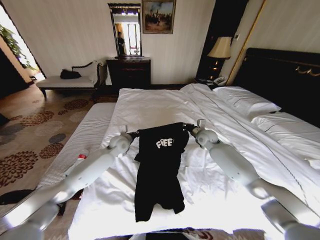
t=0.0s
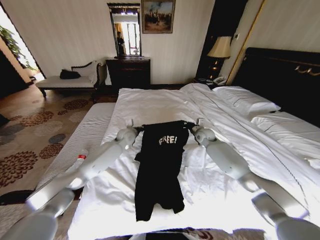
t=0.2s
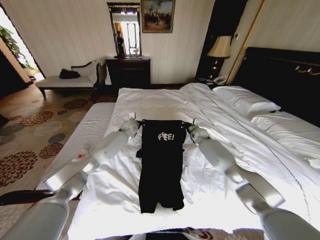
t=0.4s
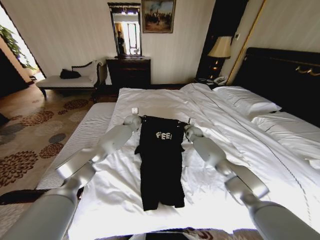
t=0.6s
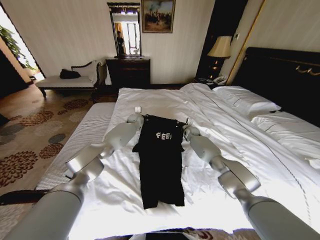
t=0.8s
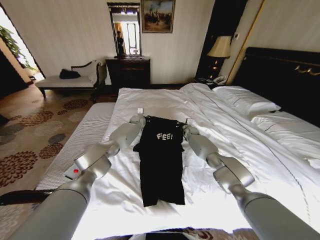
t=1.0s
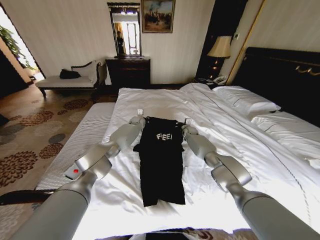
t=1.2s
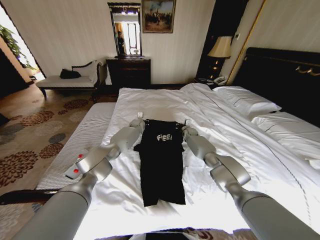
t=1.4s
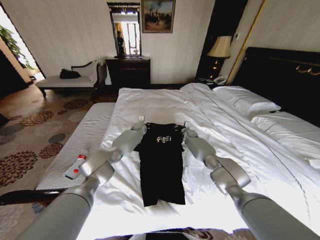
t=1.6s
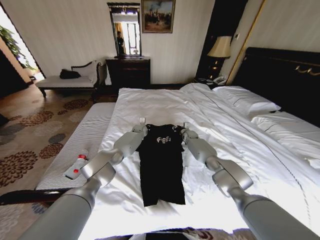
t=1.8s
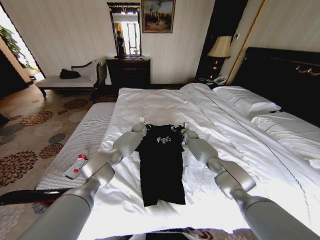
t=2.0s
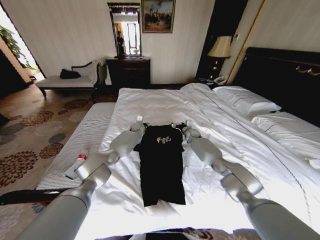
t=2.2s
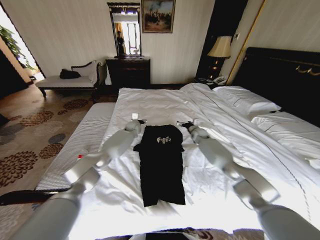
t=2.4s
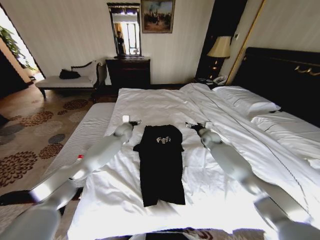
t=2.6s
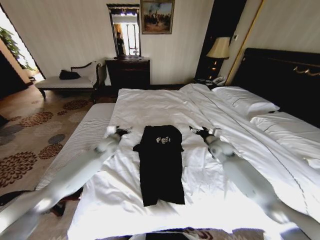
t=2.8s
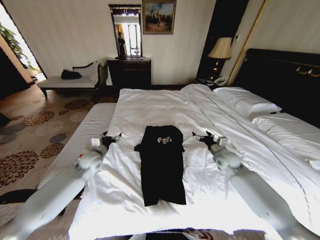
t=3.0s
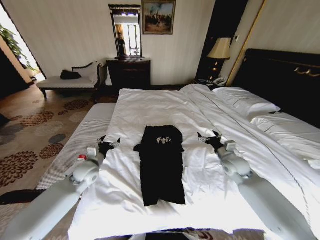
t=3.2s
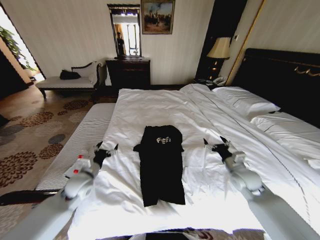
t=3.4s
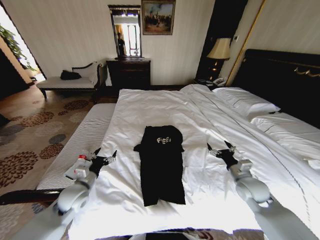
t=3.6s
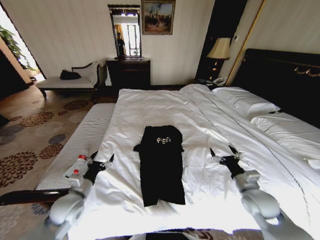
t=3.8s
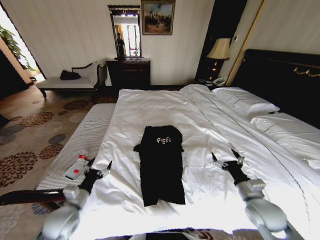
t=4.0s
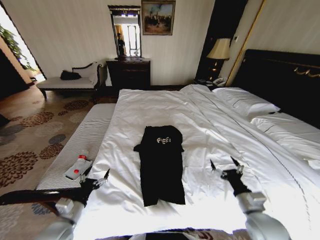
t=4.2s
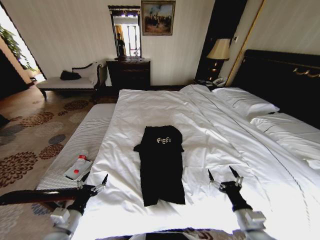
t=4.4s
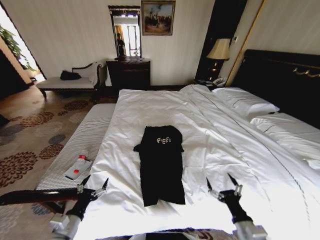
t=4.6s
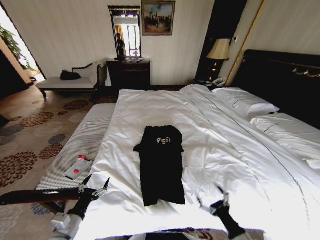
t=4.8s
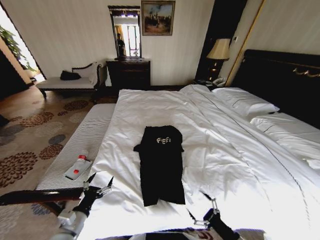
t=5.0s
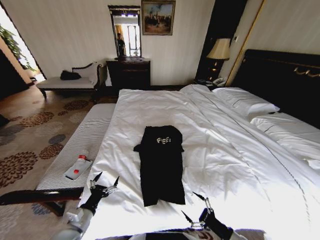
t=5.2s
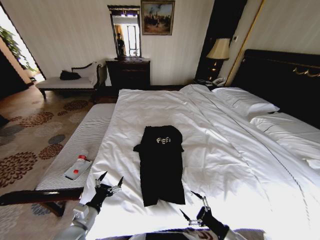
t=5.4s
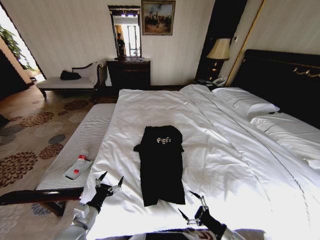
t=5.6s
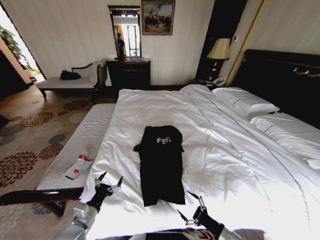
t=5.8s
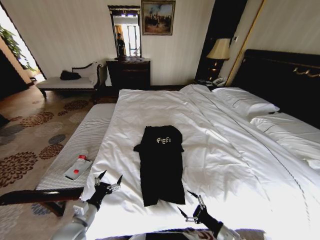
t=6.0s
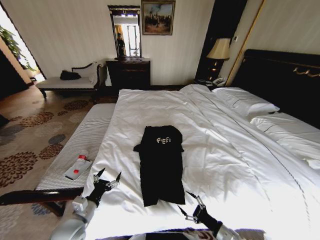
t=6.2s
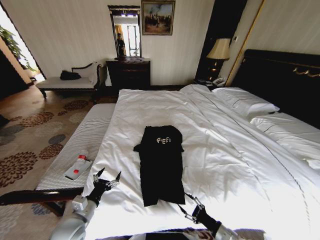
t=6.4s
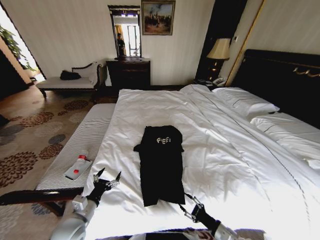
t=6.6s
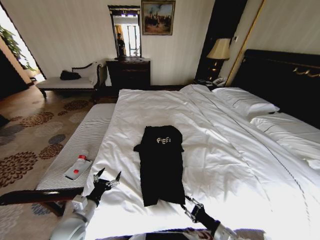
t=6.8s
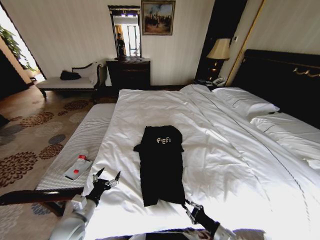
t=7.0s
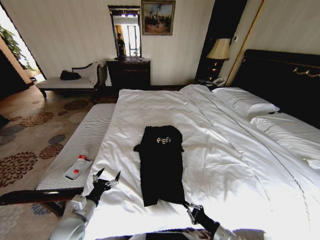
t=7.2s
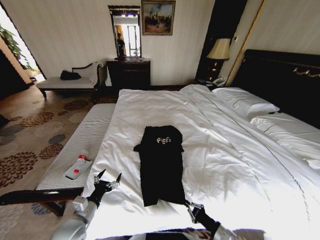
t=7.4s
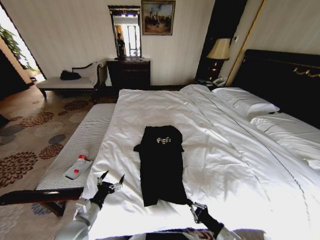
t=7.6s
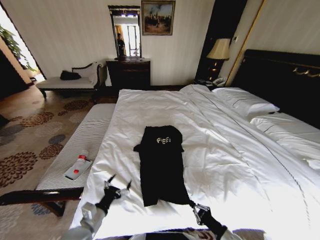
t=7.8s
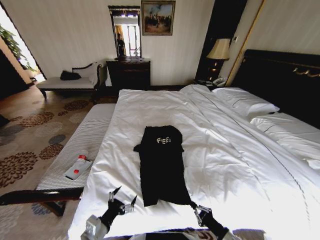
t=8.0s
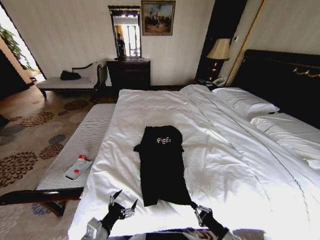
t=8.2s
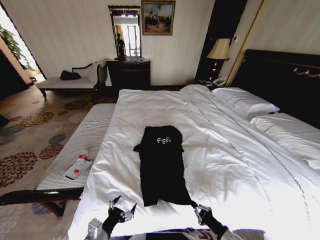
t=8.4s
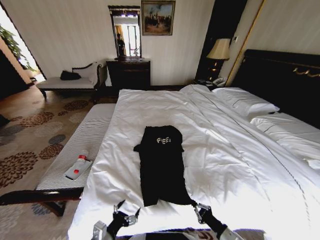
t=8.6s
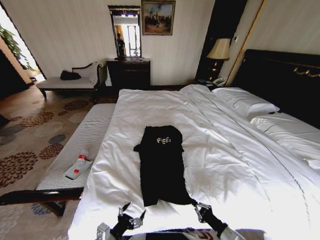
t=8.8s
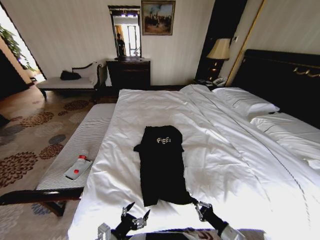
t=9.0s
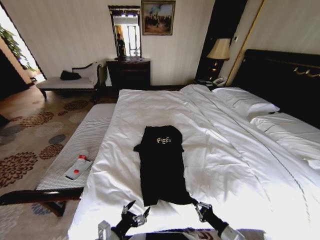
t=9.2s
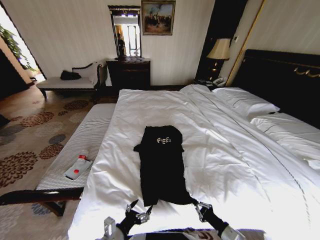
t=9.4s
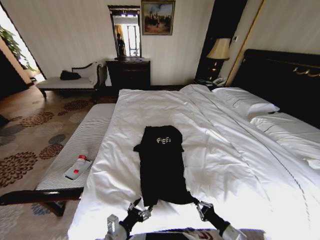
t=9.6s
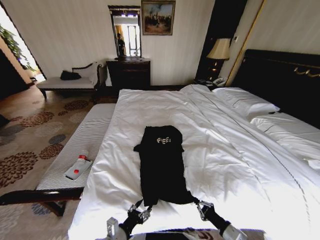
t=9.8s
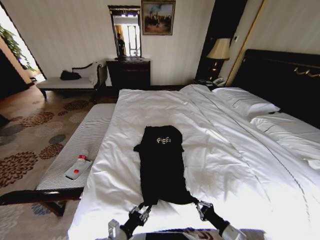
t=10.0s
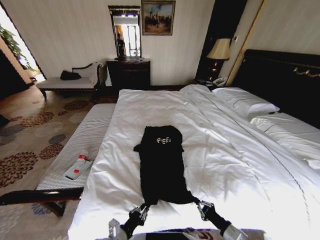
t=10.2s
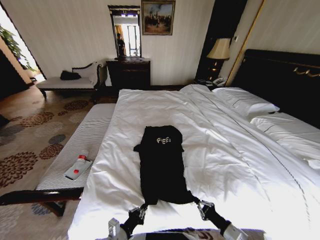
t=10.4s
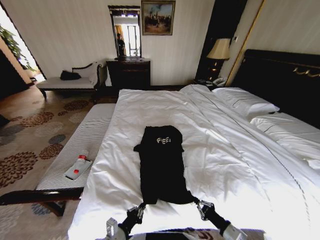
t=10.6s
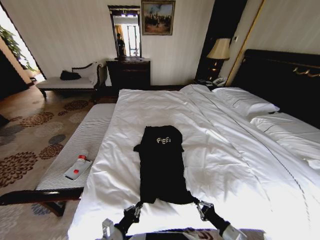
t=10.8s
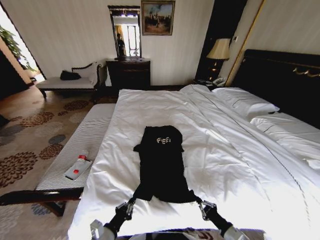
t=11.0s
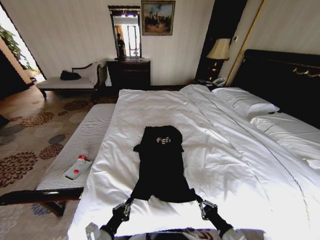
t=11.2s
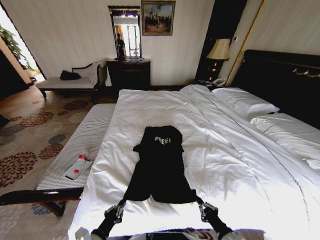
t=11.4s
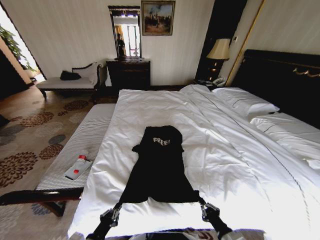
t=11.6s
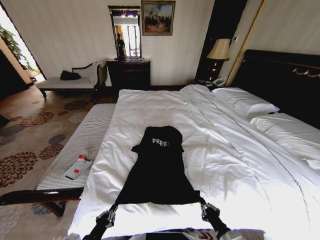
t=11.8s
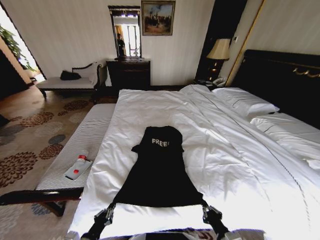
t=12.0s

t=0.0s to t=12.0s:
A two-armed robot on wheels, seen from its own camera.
Task of the whole recording: Fold the clothes on the bed.
t=0.0s to t=1.6s: The left gripper travels forward and to the right by some 20 cm. The right gripper is displaced forward and downward by some 15 cm.
t=1.6s to t=3.0s: The right gripper moves backward, roughly 25 cm, and opens its fingers, while the left gripper goes some 35 cm backward and to the left, and opens.
t=3.0s to t=4.4s: The two grippers go about 30 cm backward.
t=4.4s to t=6.0s: The right gripper heads downward, covering about 10 cm.
t=6.0s to t=7.6s: The right gripper closes up.
t=7.6s to t=9.0s: The left gripper is displaced backward and to the right by about 10 cm.
t=9.0s to t=10.4s: The left gripper changes place by roughly 5 cm, and closes its fingers.
t=10.4s to t=12.0s: Both grippers move to the left, roughly 10 cm.

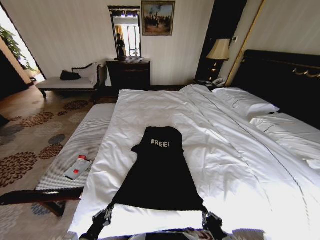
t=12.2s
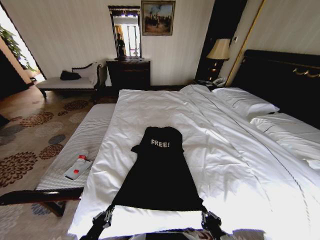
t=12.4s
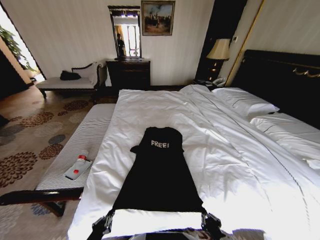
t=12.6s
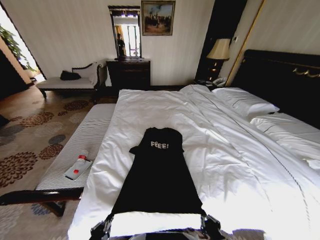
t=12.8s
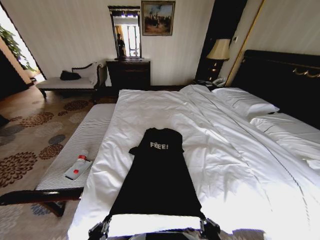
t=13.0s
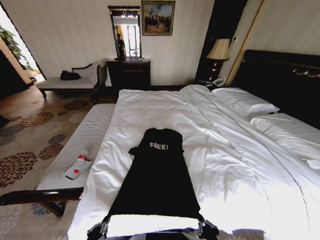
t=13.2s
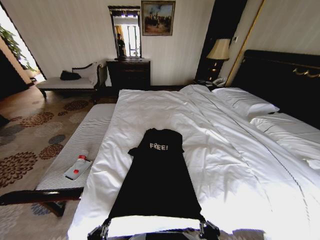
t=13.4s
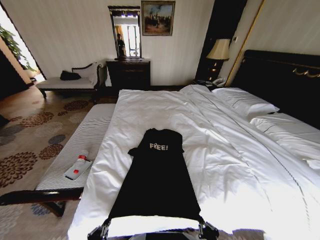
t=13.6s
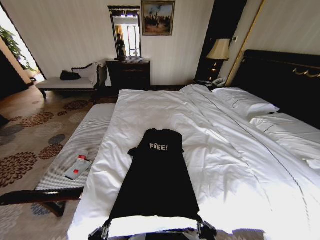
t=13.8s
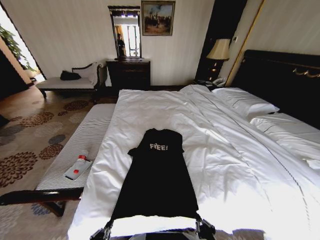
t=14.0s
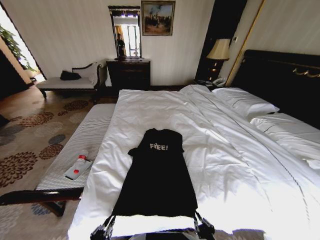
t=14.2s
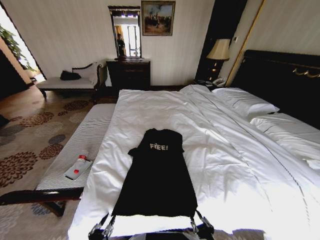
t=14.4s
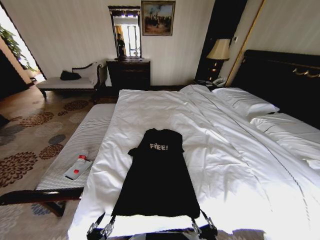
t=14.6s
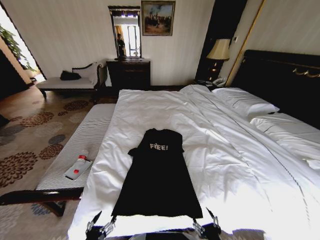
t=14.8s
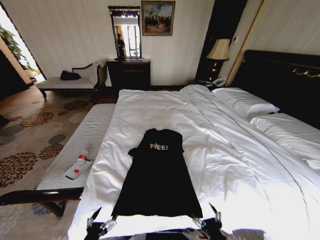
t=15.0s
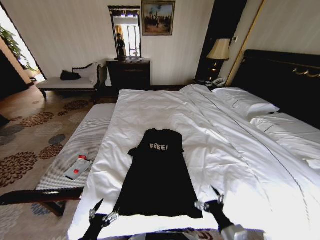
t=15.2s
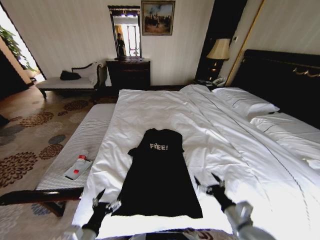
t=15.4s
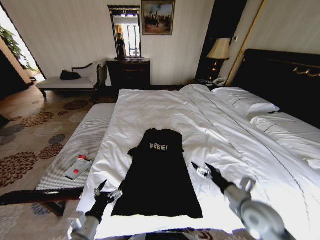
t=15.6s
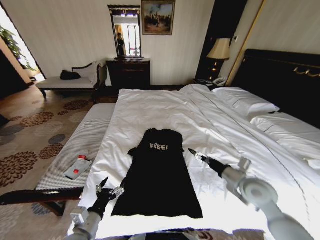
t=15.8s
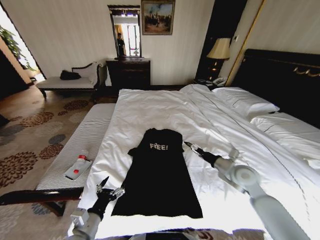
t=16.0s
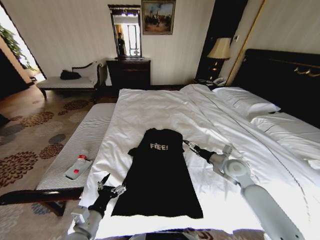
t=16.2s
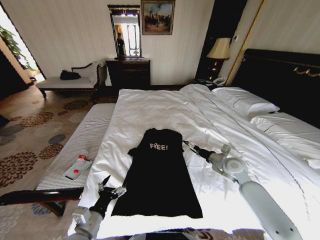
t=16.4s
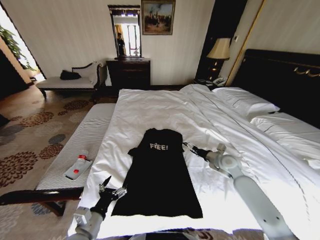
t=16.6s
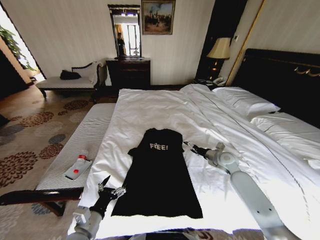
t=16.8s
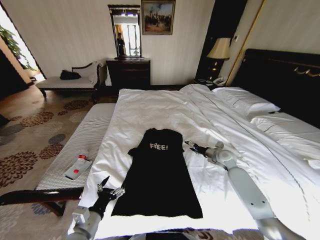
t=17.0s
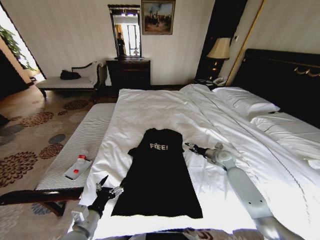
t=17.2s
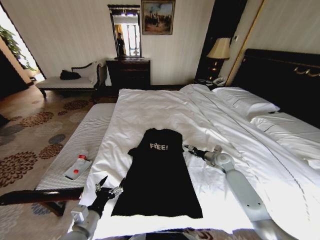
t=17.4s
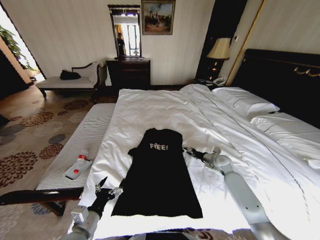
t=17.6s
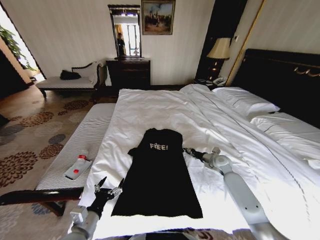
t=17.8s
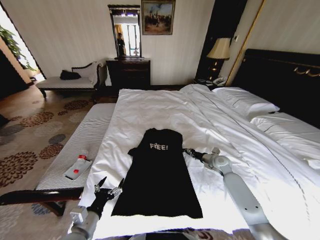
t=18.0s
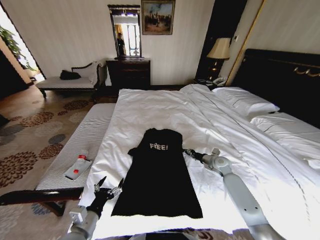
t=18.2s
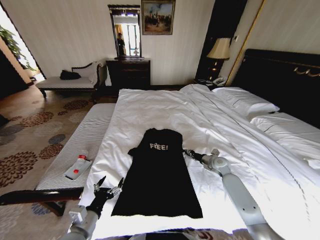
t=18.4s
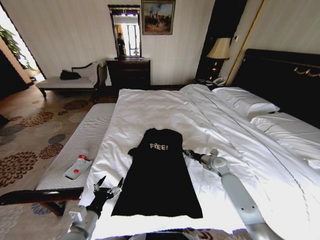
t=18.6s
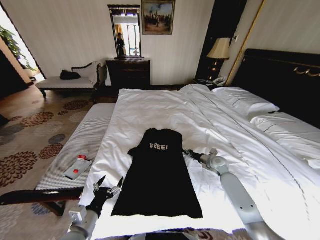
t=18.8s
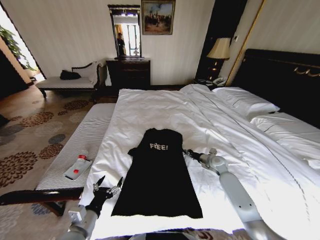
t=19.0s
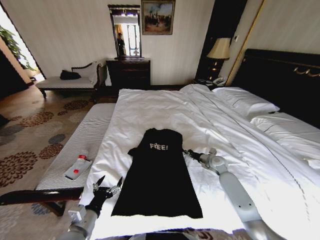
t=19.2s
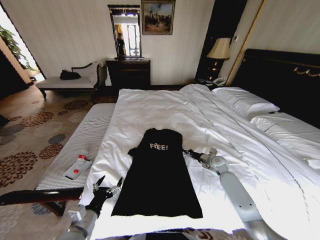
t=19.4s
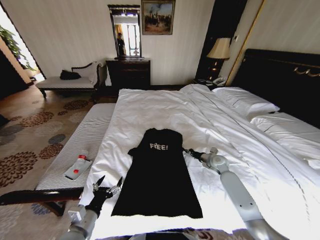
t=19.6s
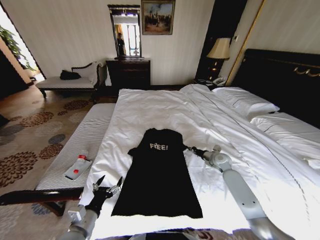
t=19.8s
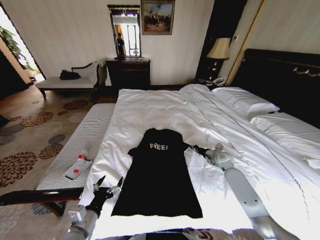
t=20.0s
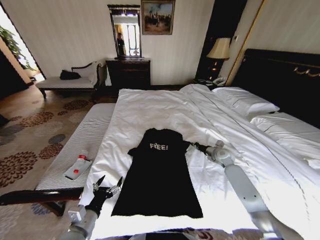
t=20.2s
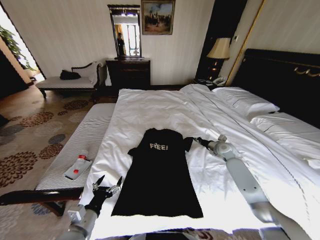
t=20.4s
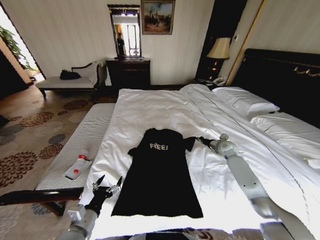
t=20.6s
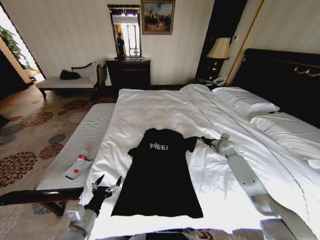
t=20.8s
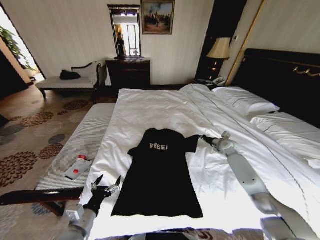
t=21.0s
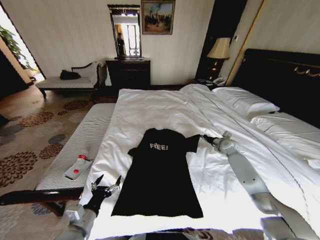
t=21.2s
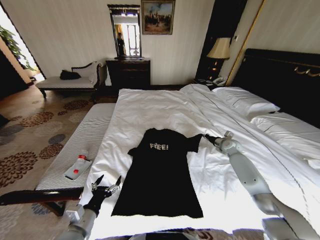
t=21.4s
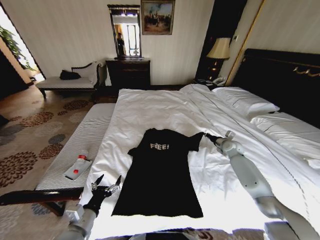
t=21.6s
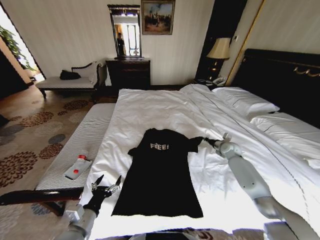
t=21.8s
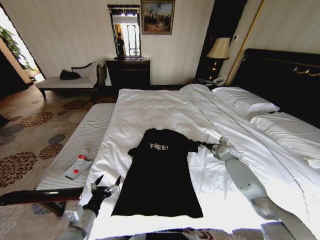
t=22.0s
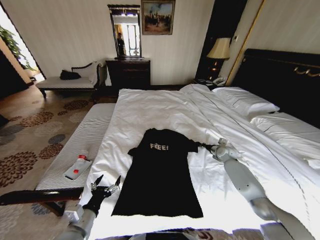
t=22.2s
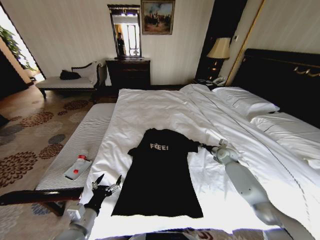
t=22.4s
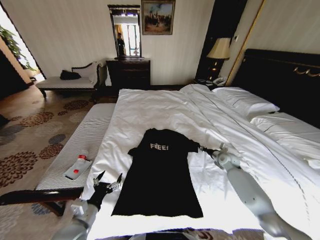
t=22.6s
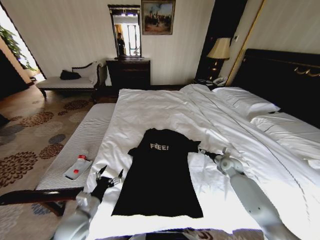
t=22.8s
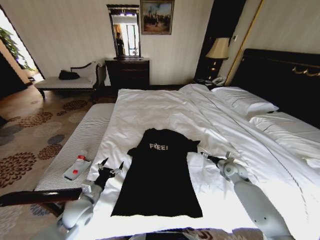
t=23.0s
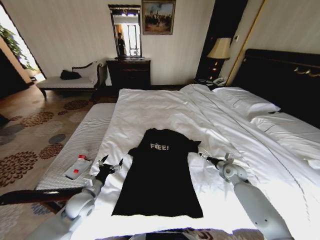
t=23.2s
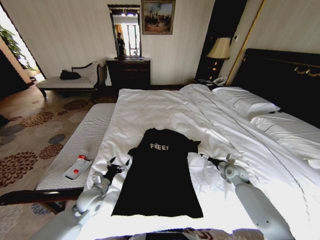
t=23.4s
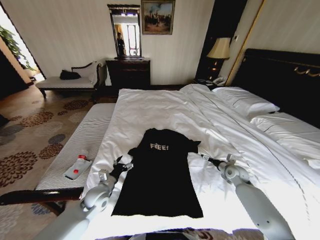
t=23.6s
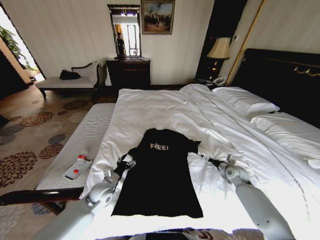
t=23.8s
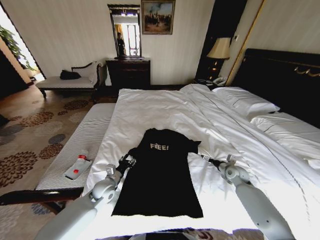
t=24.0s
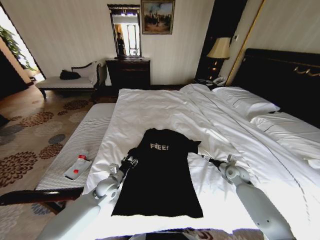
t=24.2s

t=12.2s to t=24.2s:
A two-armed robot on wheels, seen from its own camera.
Task of the whole recording: Fold the clothes on the bed.
t=12.2s to t=13.8s: The left gripper shifts some 5 cm backward.
t=13.8s to t=15.2s: The right gripper heads forward and upward, covering some 10 cm, and opens its fingers; the left gripper shifts by about 5 cm, and opens its fingers.
t=15.2s to t=16.6s: The right gripper heads forward, covering approximately 35 cm. Meanwhile the left gripper goes approximately 10 cm forward.
t=16.6s to t=18.2s: The right gripper travels downward by some 5 cm, and closes.
t=18.2s to t=19.8s: There are only small adjustments of the grippers.
t=19.8s to t=21.2s: The right gripper travels forward and to the right by roughly 10 cm.
t=21.2s to t=22.6s: The right gripper heads backward, covering roughly 5 cm, and opens.
t=22.6s to t=24.2s: The right gripper travels backward by approximately 5 cm, and opens its fingers; the left gripper goes roughly 20 cm forward, and closes its fingers.
